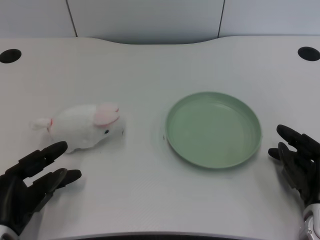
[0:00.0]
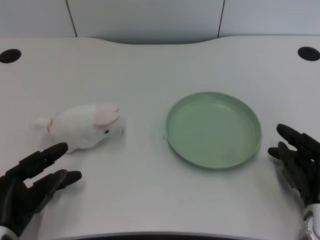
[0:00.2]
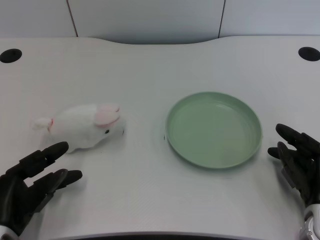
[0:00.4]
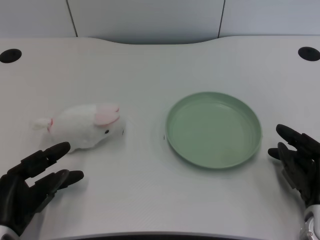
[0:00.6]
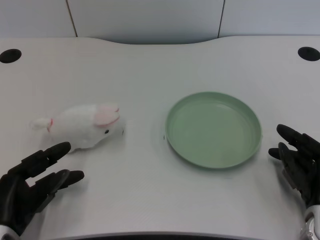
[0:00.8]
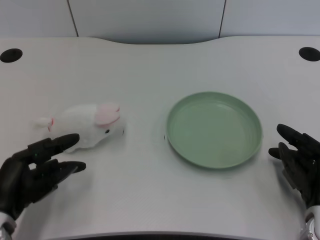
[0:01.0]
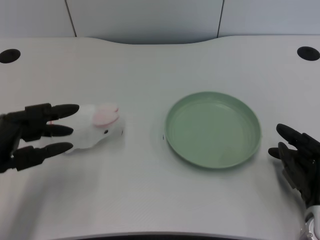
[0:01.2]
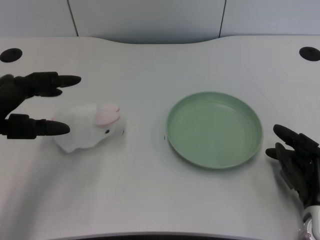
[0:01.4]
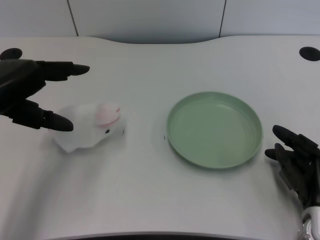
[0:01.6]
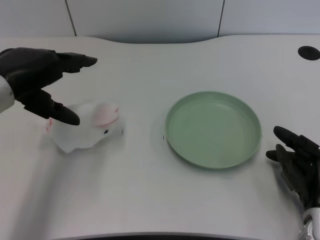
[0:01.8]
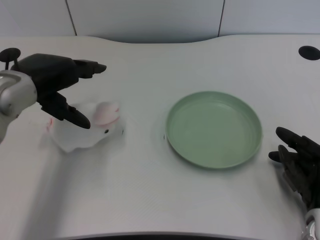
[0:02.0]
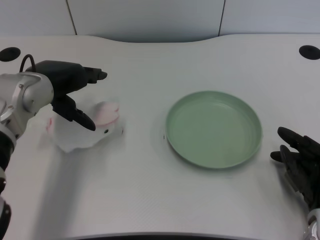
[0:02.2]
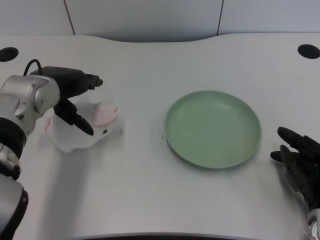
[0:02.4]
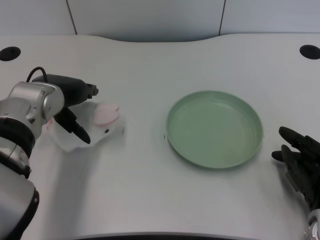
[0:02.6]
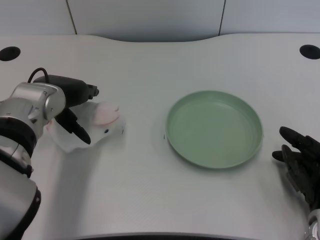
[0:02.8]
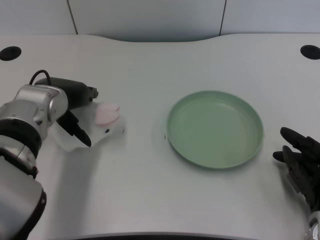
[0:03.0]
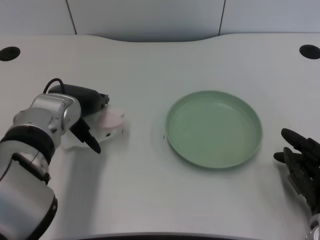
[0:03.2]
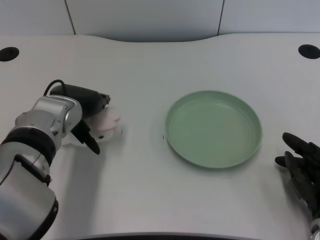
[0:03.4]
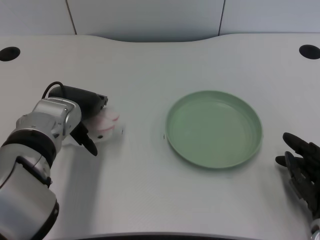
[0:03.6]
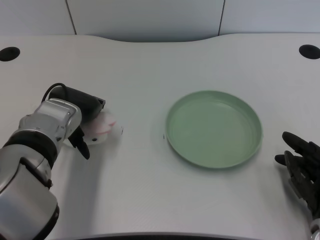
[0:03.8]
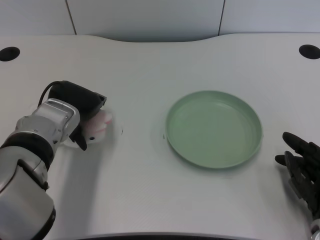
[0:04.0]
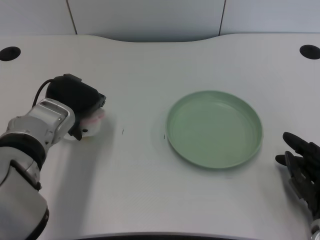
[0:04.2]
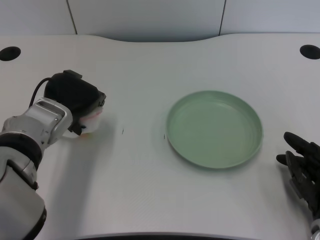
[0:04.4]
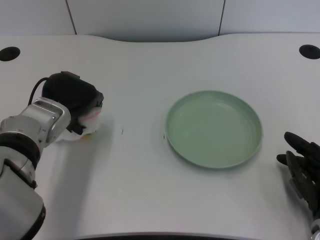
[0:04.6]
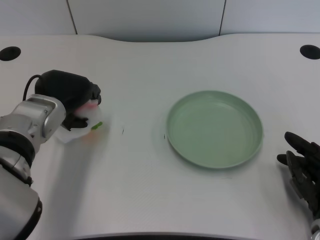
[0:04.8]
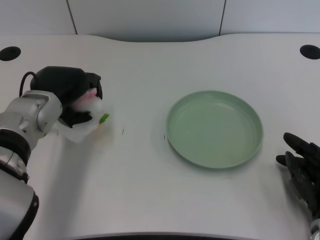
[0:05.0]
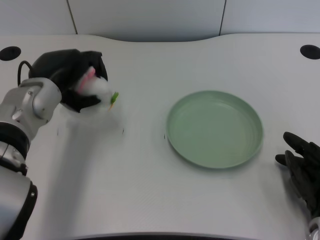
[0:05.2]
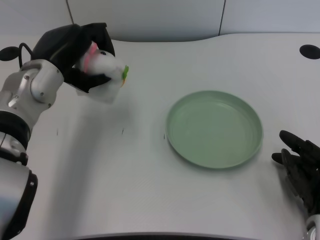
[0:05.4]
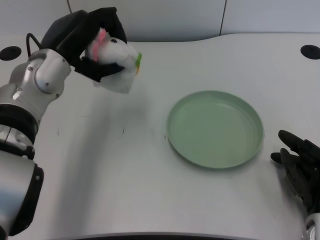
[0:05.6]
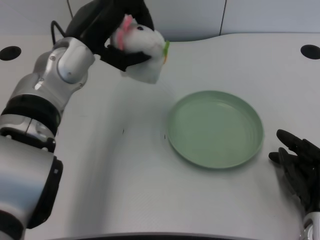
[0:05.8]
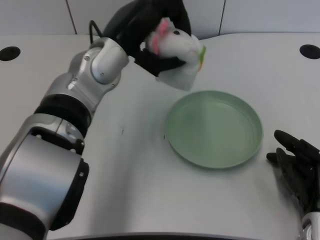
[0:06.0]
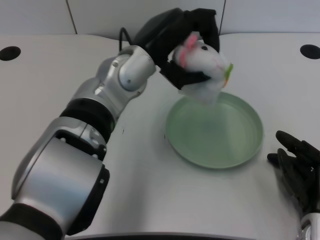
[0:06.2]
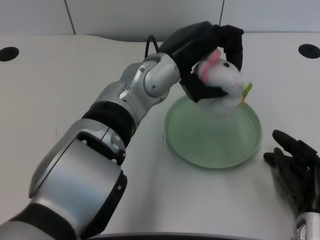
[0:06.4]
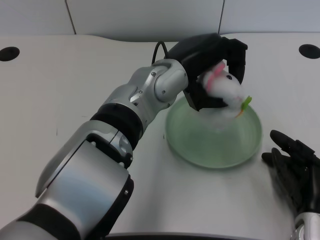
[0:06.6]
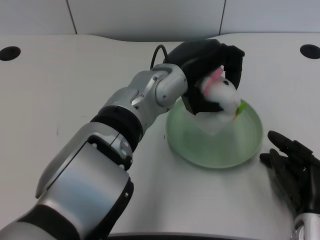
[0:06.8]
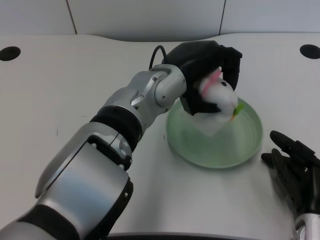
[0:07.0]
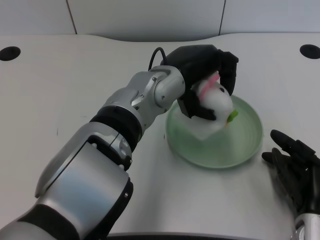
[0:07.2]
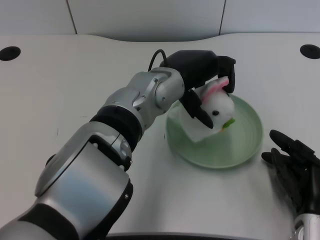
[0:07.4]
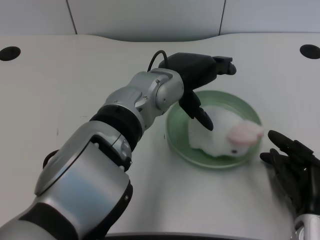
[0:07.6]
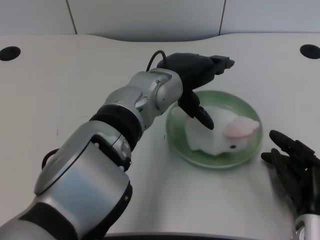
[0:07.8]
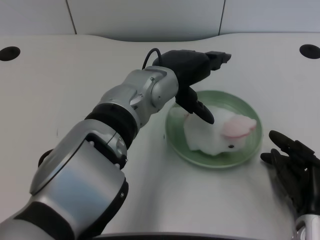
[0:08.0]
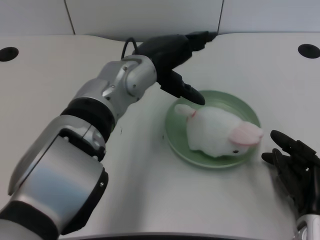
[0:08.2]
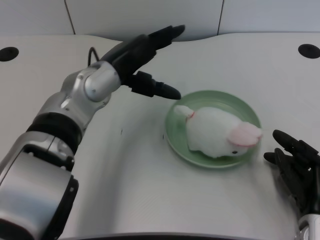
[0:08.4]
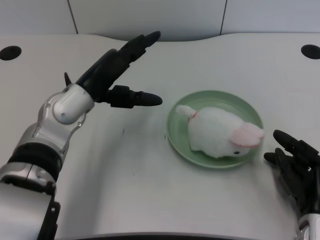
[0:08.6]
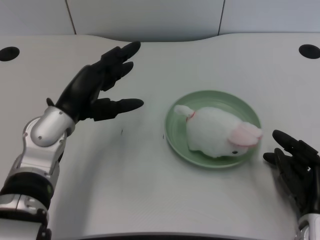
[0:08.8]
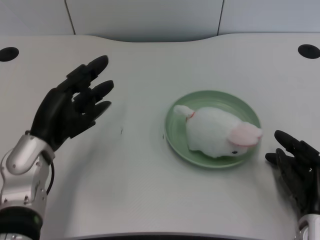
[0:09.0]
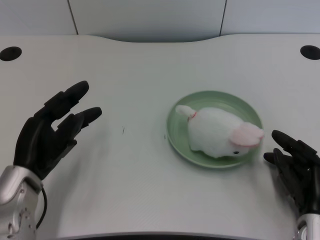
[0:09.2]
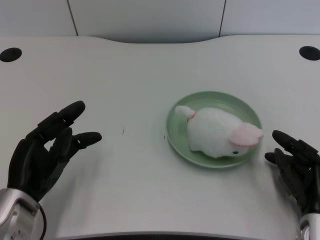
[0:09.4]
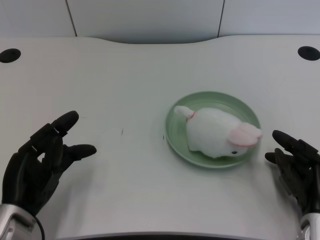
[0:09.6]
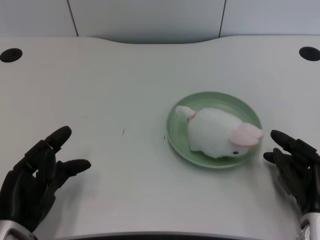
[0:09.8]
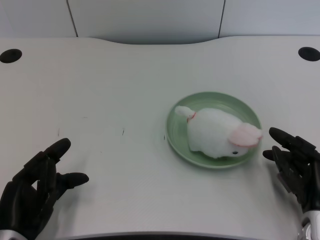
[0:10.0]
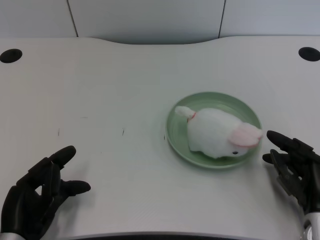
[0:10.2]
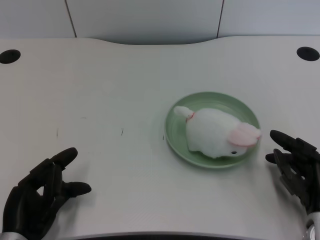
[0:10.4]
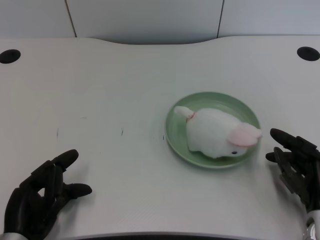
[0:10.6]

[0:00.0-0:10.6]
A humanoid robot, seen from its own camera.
Task of the whole recording: pick up the rabbit doll from the table and place it on the plate.
Step, 0:01.0 to 0:04.8: Grasp the rabbit doll with the left gripper.
Step, 0:05.0 to 0:07.4: Place the rabbit doll into the plate with the left gripper.
0:01.6 to 0:03.0: The left hand goes some 10 cm to the right and forward.
0:04.6 to 0:06.0: The left hand travels to the right and upward by approximately 10 cm.
0:06.0 to 0:07.6: The left hand moves to the right, some 5 cm.
0:07.6 to 0:09.0: The left hand shifts about 20 cm to the left and downward.
0:09.0 to 0:10.6: The left hand is displaced backward and downward by approximately 15 cm.

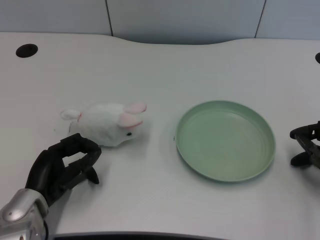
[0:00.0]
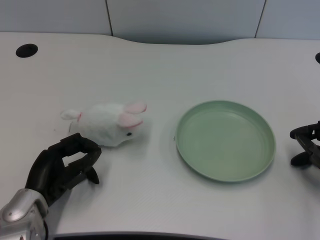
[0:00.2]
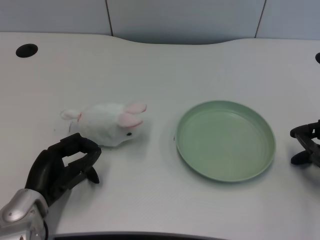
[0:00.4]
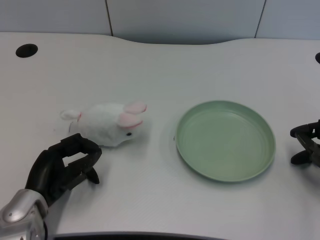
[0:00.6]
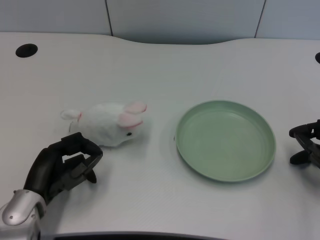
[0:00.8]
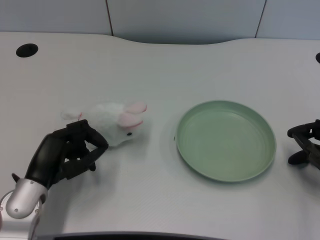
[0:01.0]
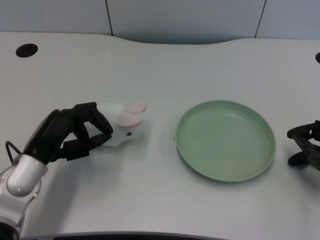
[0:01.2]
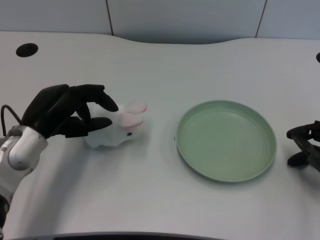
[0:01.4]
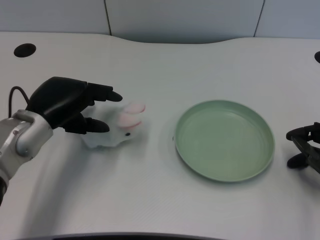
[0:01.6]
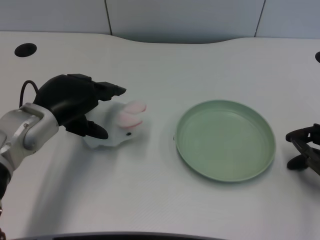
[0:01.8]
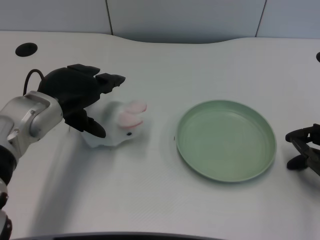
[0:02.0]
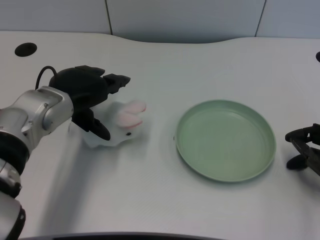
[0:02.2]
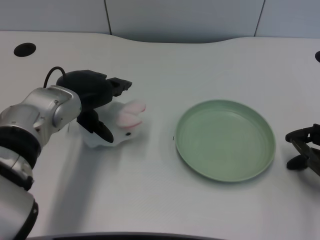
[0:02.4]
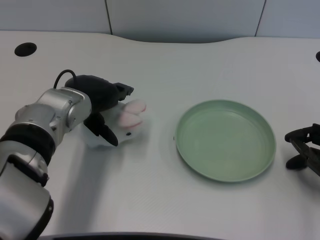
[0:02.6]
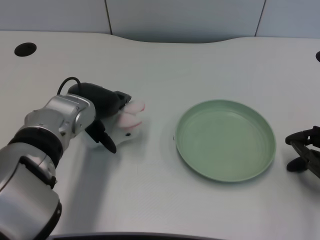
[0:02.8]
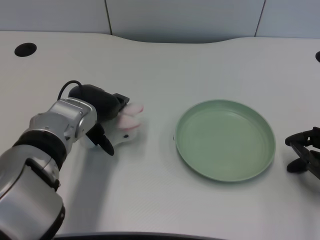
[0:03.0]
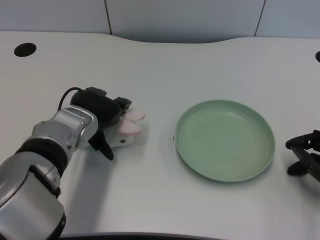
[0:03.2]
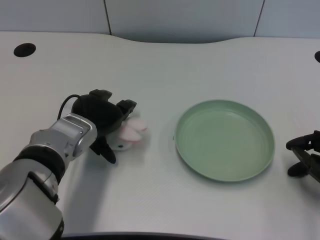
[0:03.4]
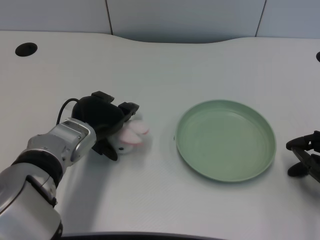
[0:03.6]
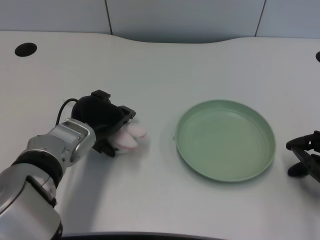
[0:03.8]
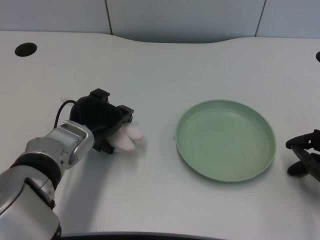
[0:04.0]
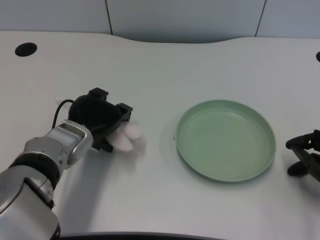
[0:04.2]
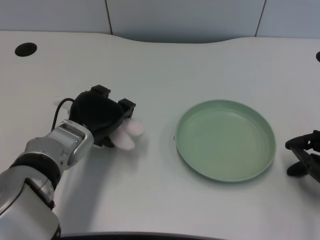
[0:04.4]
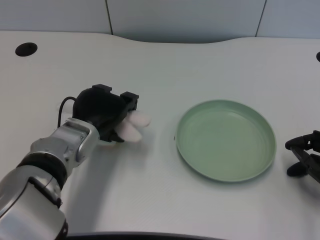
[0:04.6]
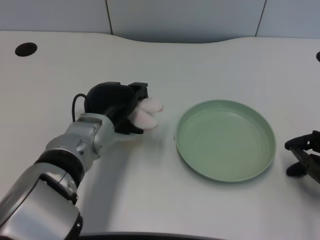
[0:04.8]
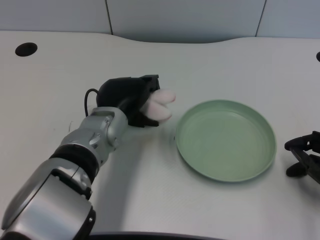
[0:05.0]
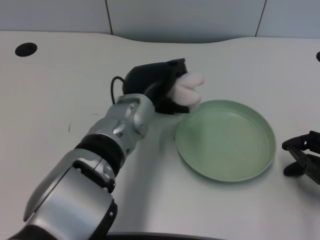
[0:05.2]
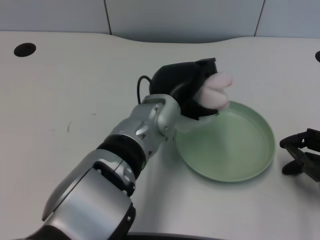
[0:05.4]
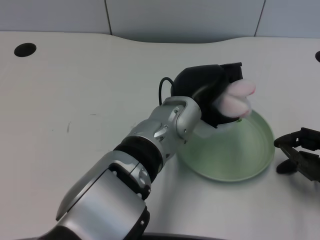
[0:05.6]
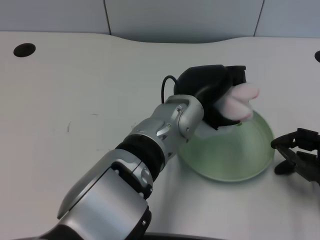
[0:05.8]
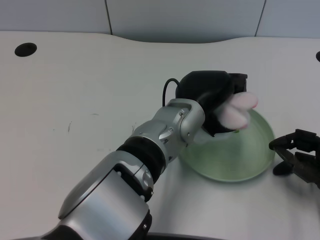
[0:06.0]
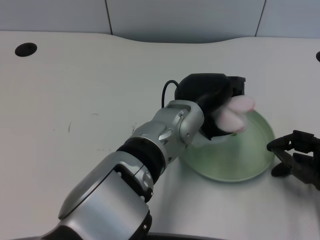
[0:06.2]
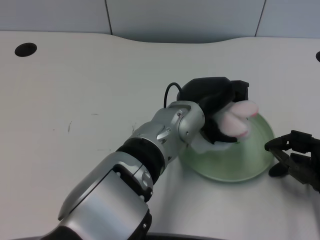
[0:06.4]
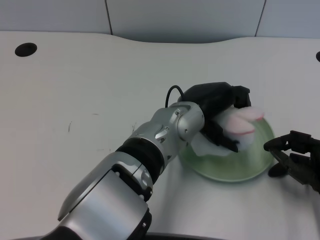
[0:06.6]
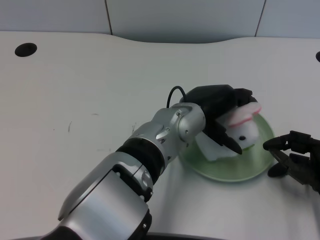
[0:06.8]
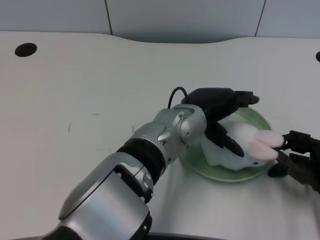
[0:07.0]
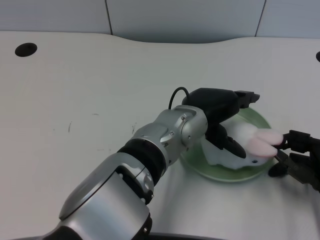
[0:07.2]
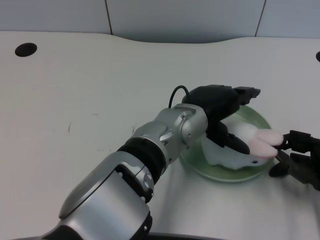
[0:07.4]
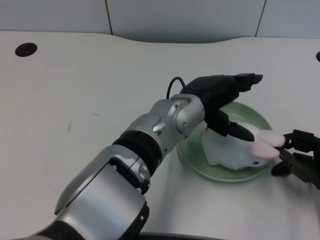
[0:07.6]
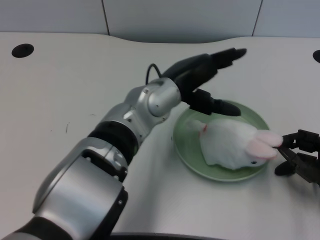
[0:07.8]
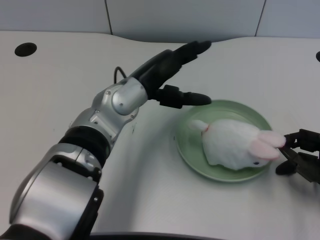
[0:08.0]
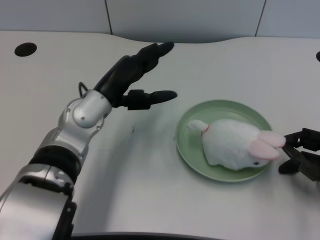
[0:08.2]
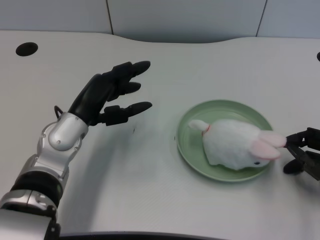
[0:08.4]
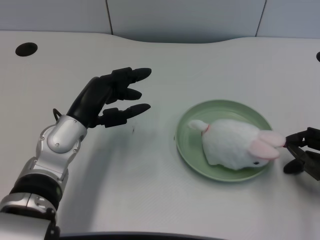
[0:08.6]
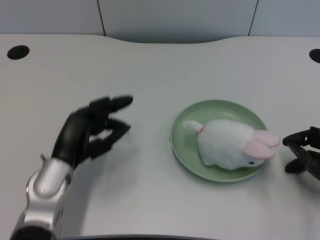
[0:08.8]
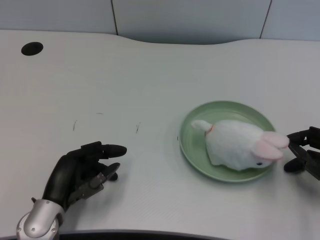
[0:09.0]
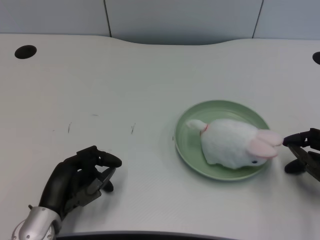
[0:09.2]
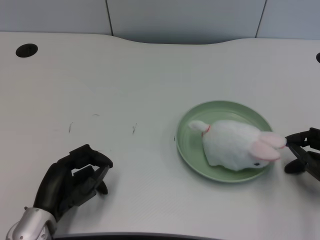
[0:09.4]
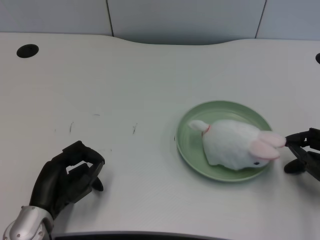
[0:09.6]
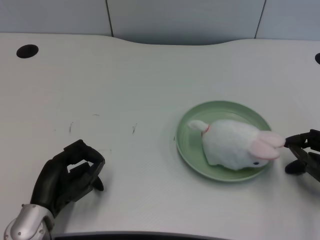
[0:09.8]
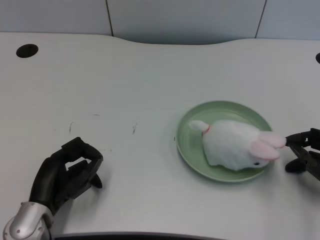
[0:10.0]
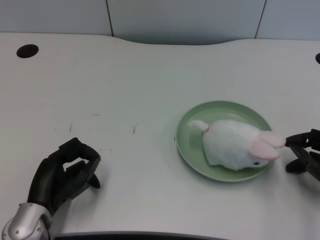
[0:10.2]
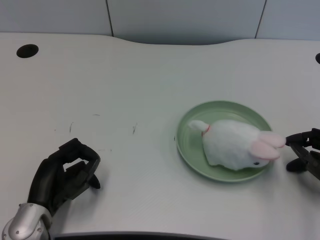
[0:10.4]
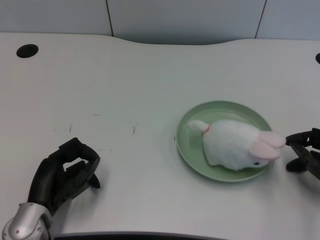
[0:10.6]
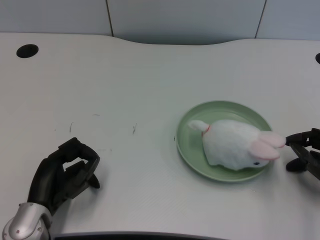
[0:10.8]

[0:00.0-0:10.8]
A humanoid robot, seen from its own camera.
Task of the whole recording: pick up the rabbit doll from the table and place it on the plate.
Step, 0:00.8 to 0:04.2: Grasp the rabbit doll with the left gripper.
Step, 0:04.4 to 0:07.0: Place the rabbit doll into the plate with the left gripper.
0:01.6 to 0:03.0: The left hand travels to the right by roughly 5 cm.
0:04.6 to 0:06.2: The left hand heads to the right, covering about 15 cm.
0:06.2 to 0:07.8: The left hand shifts by some 5 cm.
0:07.8 to 0:09.2: The left hand heads to the left, downward and backward, covering approximately 25 cm.
0:09.2 to 0:10.8: The hands make only small movements.

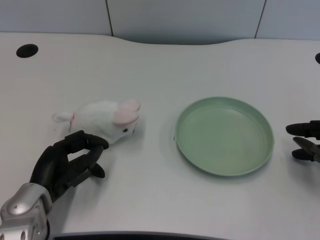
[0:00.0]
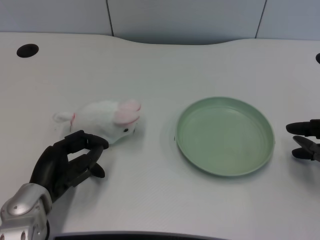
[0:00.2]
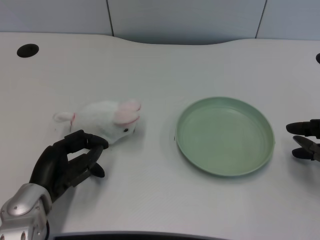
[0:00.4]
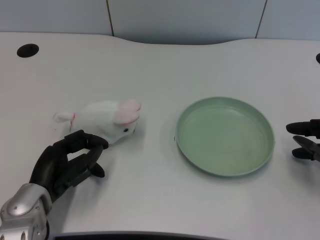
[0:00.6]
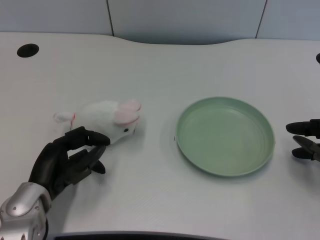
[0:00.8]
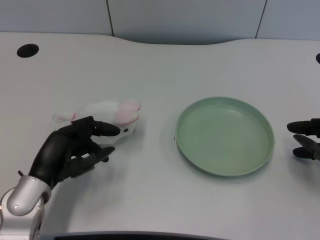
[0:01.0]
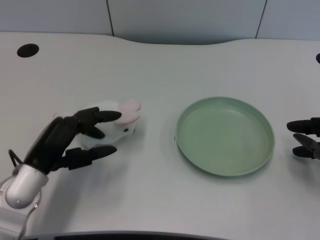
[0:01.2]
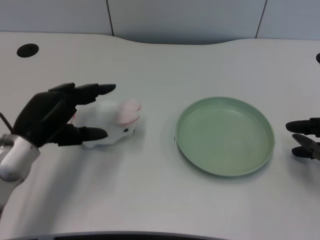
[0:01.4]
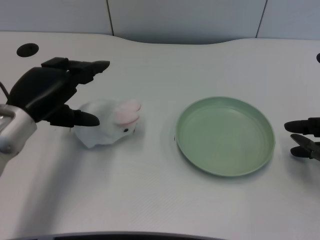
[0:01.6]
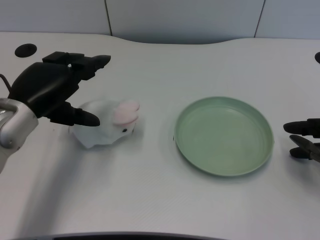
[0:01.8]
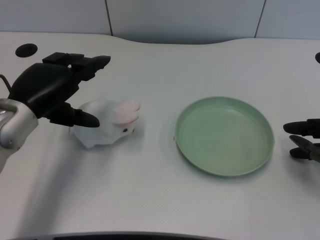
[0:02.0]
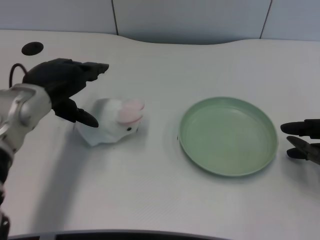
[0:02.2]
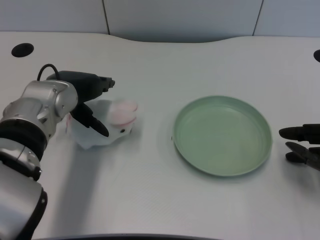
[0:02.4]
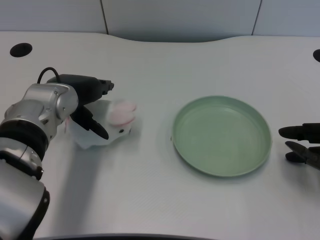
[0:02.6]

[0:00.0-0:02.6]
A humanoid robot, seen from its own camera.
Task of the whole recording: pick up the rabbit doll from the table and place it on the plate.
0:01.2 to 0:02.6: The left hand goes roughly 15 cm forward, upward and to the right.
